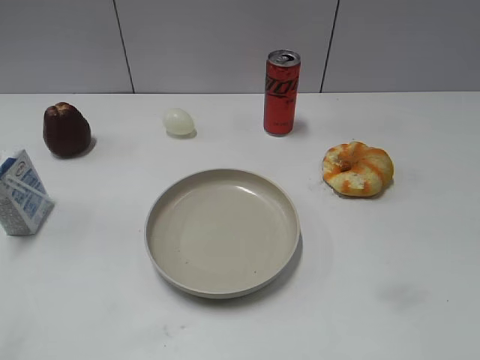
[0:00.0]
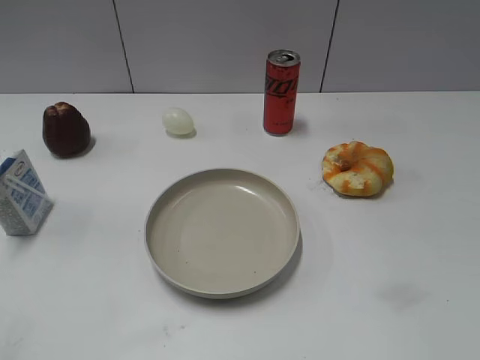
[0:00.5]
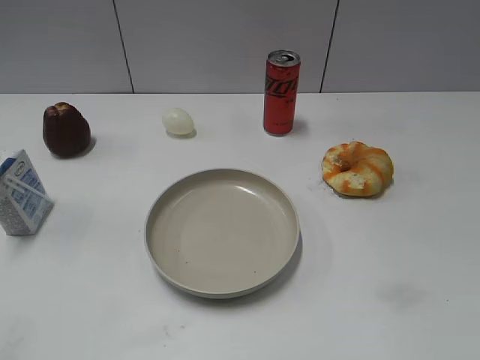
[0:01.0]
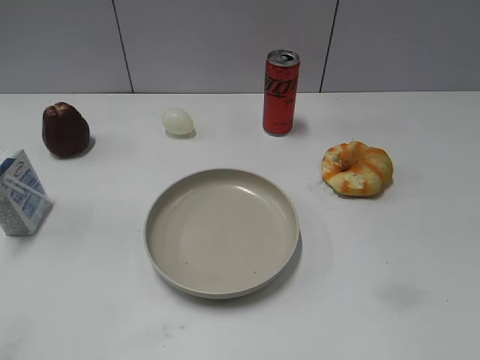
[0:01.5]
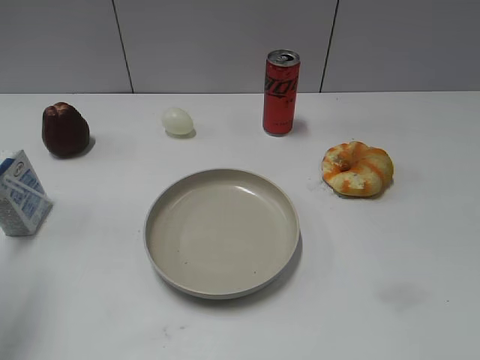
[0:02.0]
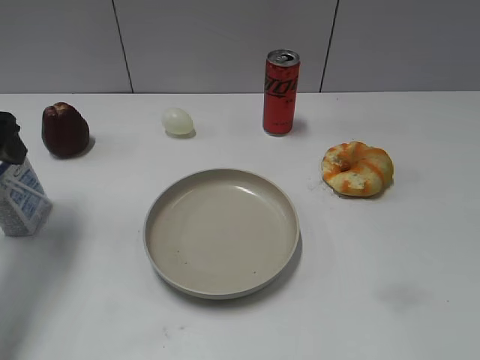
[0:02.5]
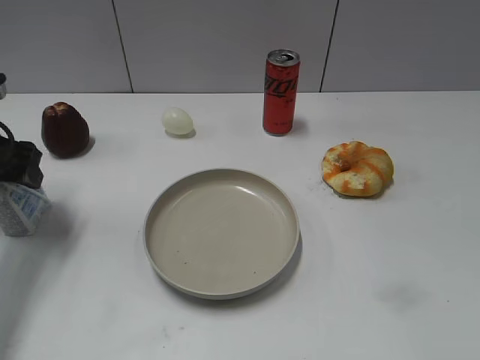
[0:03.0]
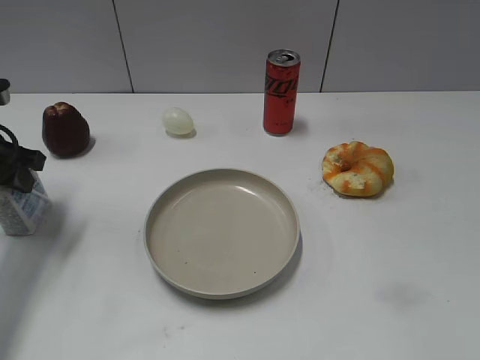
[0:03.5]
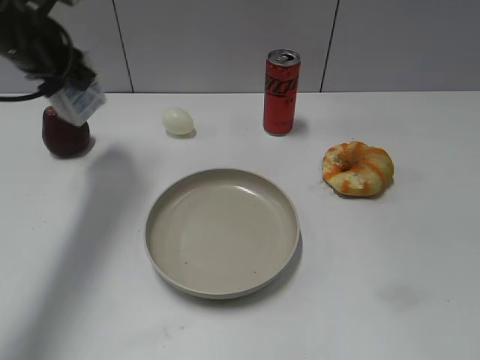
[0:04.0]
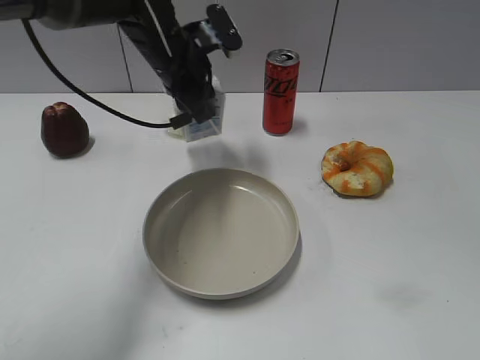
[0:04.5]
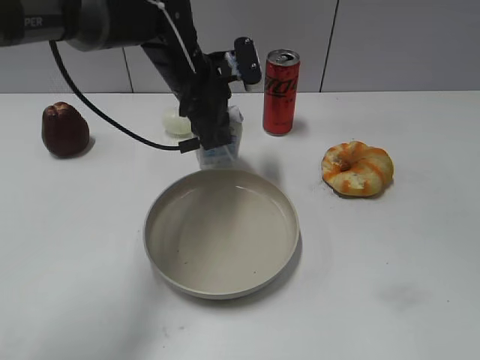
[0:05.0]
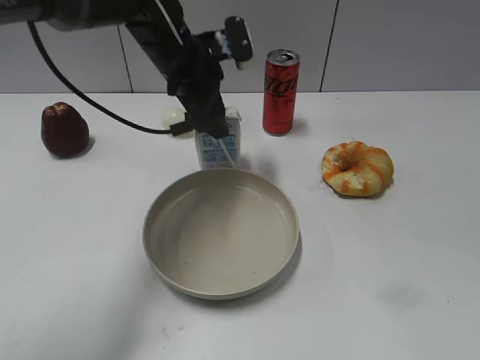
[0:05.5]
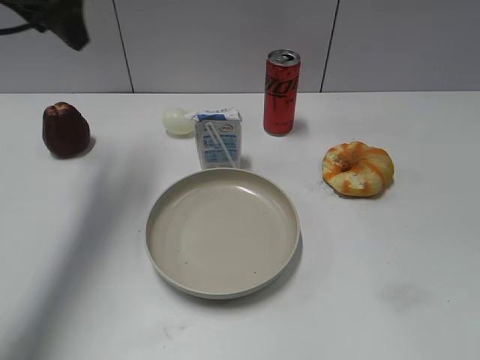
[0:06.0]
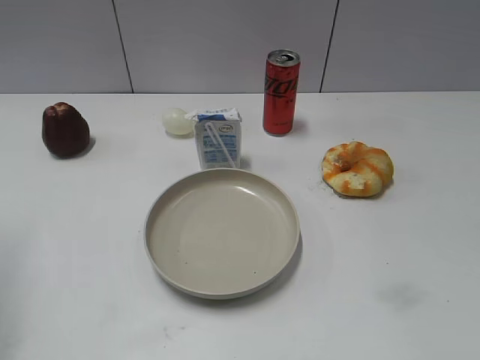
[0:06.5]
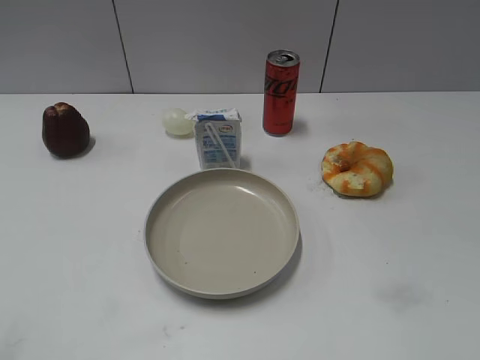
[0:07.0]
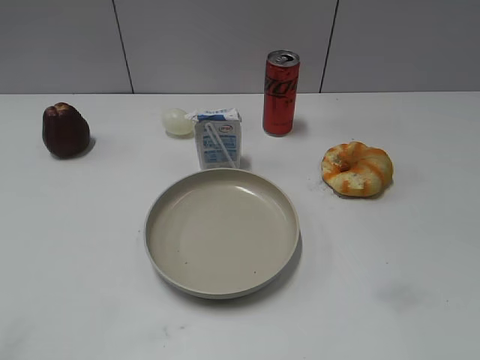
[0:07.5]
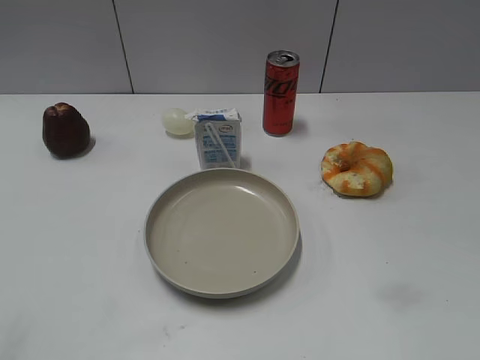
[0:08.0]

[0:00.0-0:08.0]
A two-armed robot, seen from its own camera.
Step, 0:01.5 to 0:03.5: Grasp the milk with left gripper.
Step, 0:04.0 to 0:05.5: Place the milk on the table with left gripper.
0:02.0 to 0:04.0: The left gripper is displaced forward and to the right by about 20 cm, and closes its fingers.
0:04.0 to 0:06.0: The left gripper travels upward by roughly 10 cm, moves about 15 cm to the right and comes back, and opens.
0:06.0 to 0:08.0: The left gripper is displaced backward by roughly 40 cm.

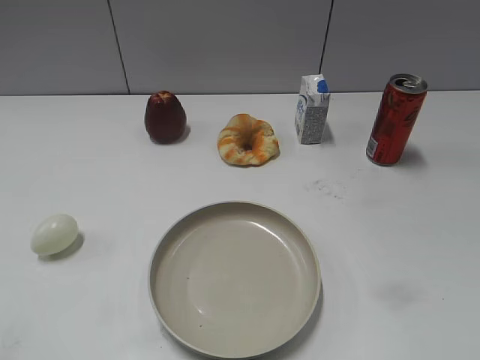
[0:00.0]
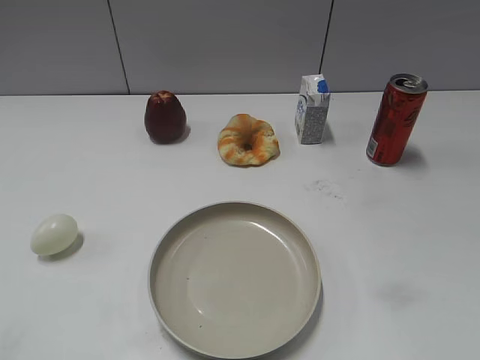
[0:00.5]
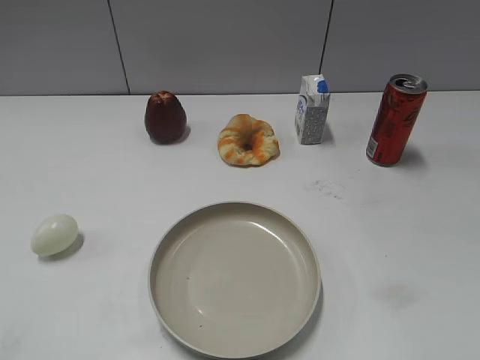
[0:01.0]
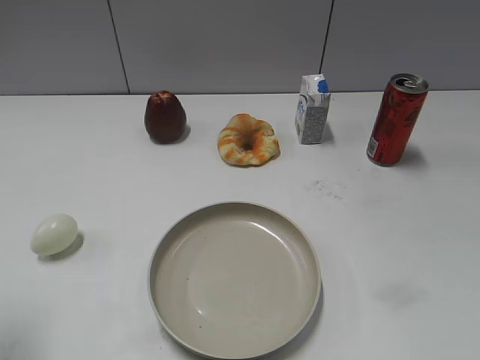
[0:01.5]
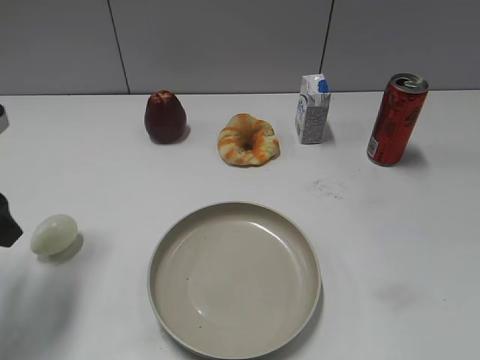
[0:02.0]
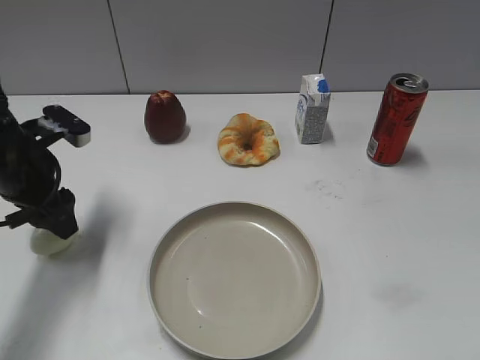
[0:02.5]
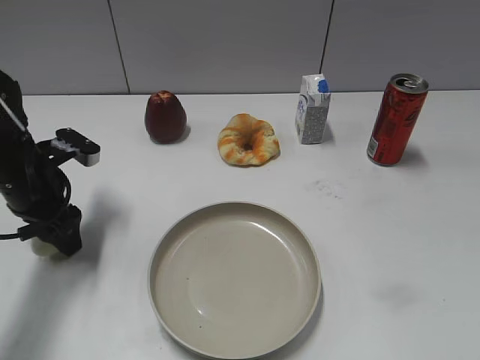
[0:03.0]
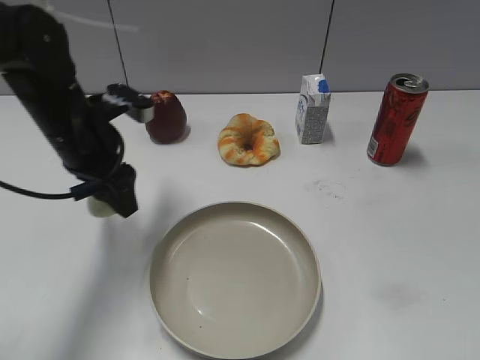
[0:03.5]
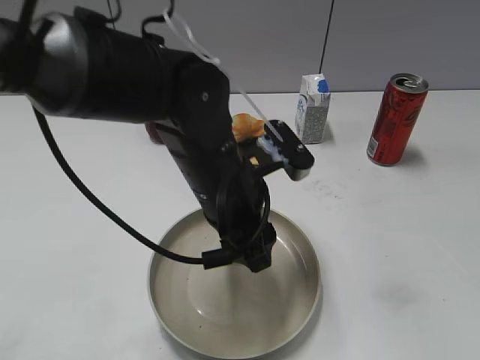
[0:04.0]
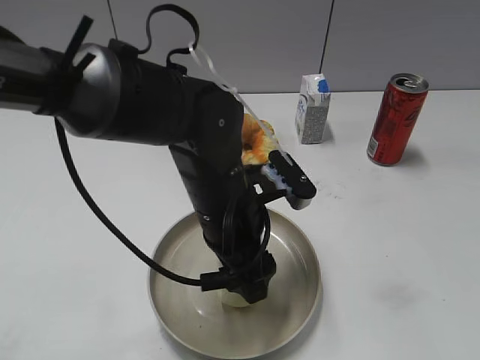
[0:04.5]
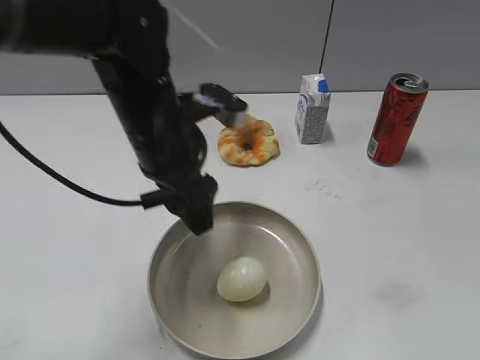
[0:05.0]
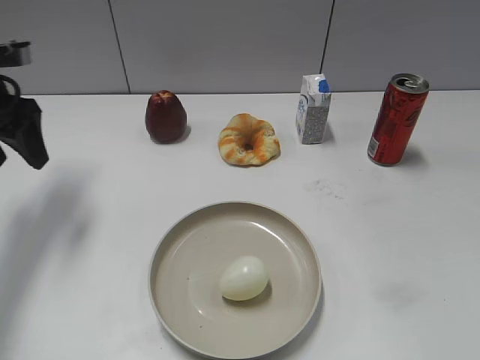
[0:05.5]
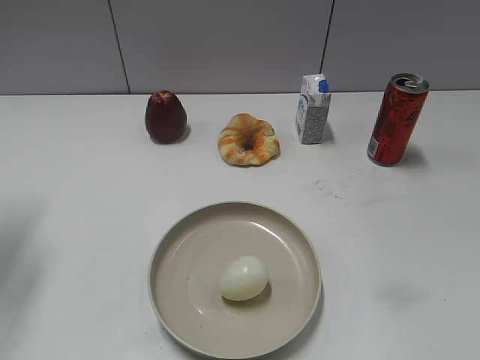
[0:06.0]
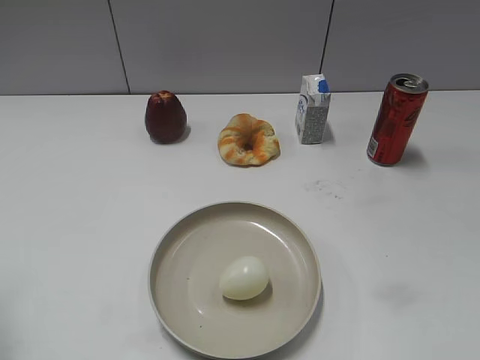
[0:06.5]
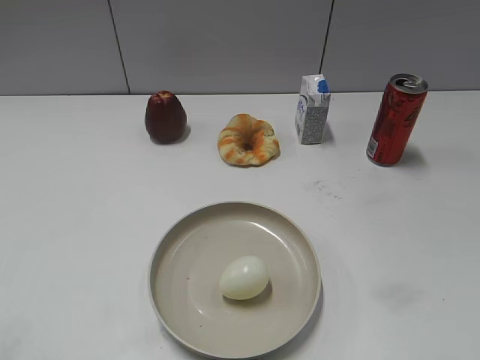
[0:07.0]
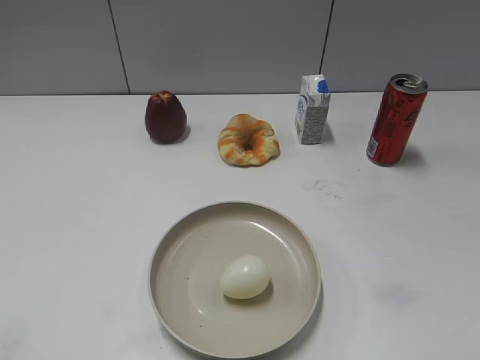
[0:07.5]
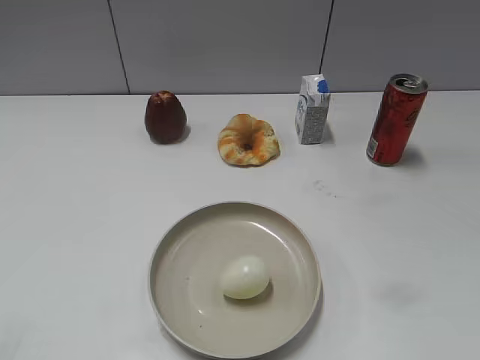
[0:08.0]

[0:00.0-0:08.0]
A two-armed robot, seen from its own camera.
Step, 0:01.0 to 0:03.0: Grasp the egg with left gripper.
Step, 0:03.5 to 0:04.5: Place the egg on the plate with left gripper.
0:02.0 to 0:04.0: The left gripper is displaced to the right by approximately 25 cm, and closes up.
0:04.0 to 0:06.0: The left gripper moves to the left, roughly 30 cm, and opens its fingers.
0:06.0 to 0:08.0: The left gripper is displaced backward by about 30 cm, and closes its fingers.
